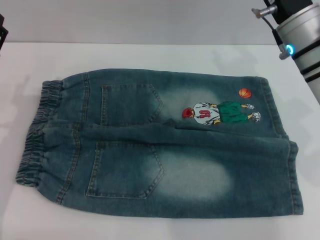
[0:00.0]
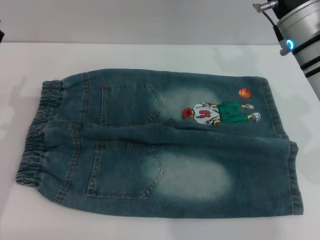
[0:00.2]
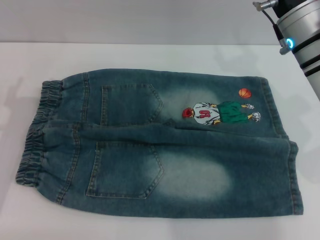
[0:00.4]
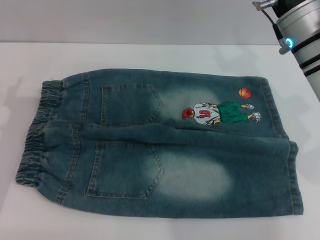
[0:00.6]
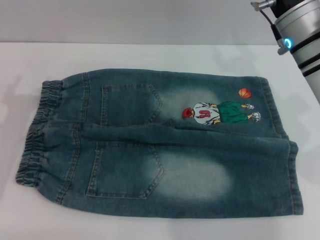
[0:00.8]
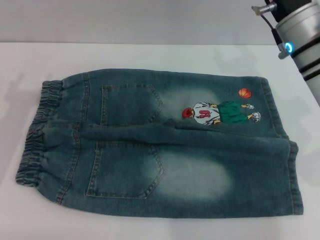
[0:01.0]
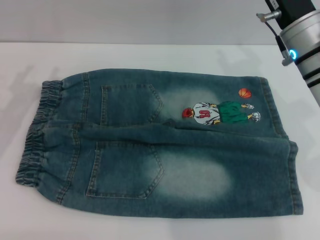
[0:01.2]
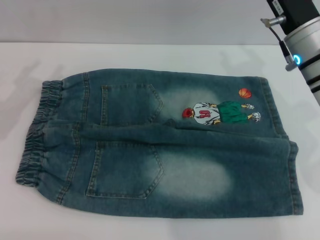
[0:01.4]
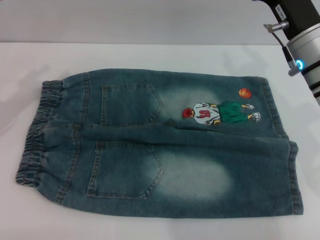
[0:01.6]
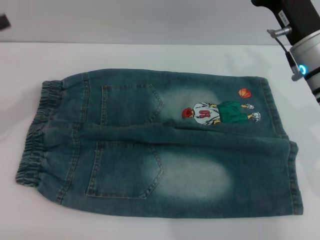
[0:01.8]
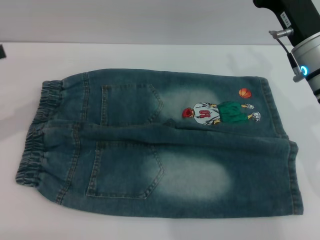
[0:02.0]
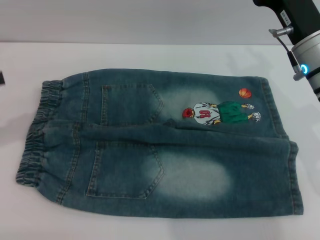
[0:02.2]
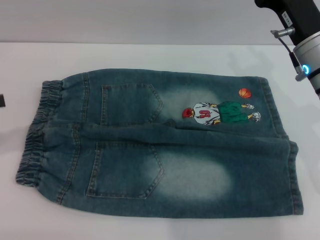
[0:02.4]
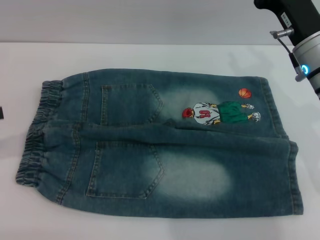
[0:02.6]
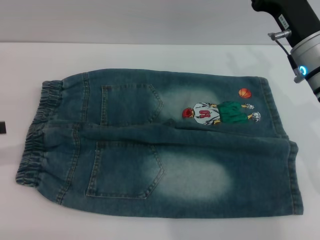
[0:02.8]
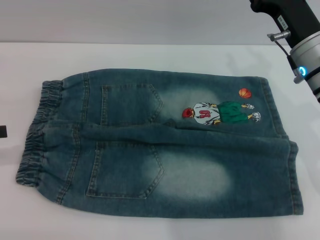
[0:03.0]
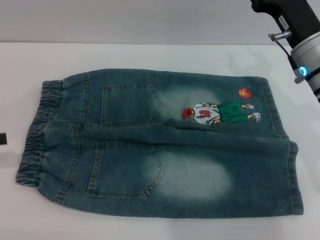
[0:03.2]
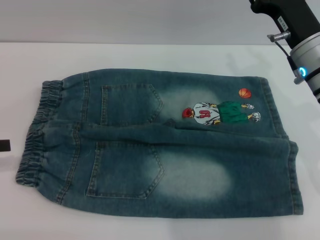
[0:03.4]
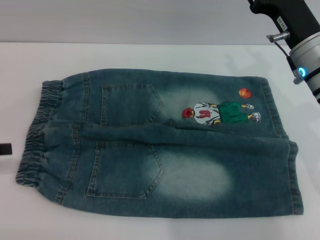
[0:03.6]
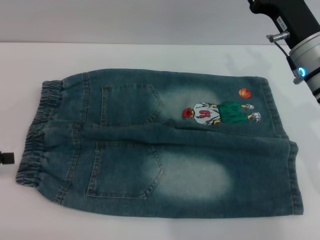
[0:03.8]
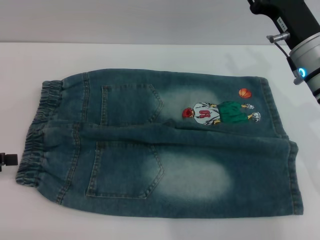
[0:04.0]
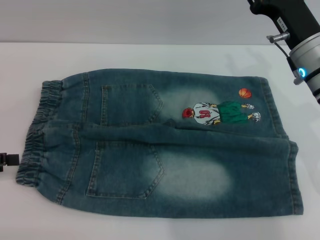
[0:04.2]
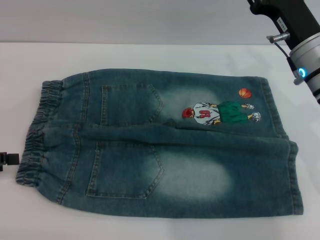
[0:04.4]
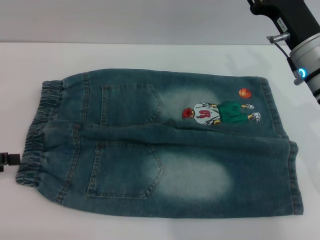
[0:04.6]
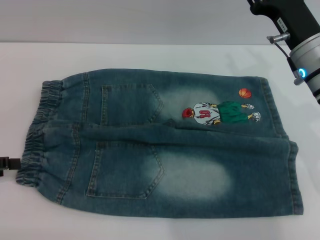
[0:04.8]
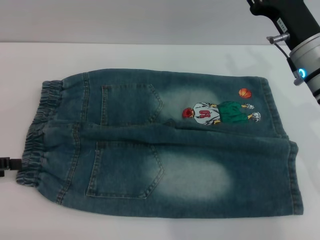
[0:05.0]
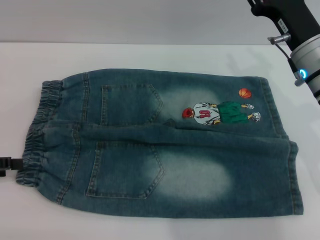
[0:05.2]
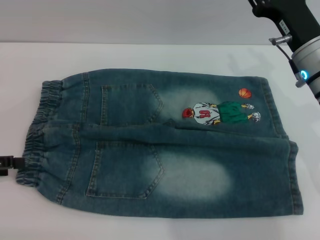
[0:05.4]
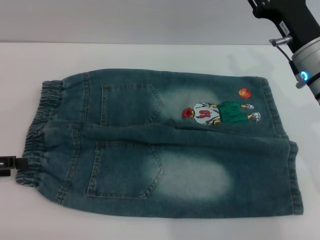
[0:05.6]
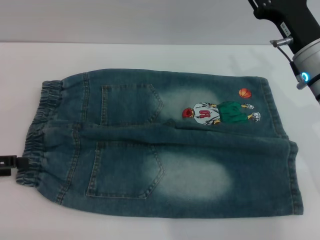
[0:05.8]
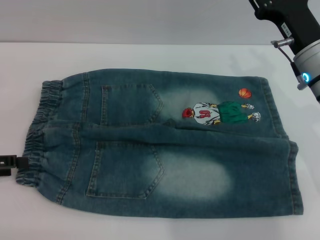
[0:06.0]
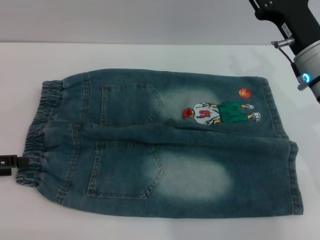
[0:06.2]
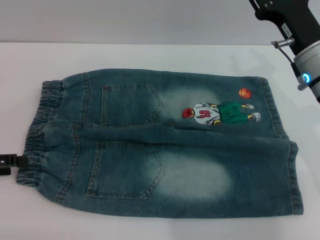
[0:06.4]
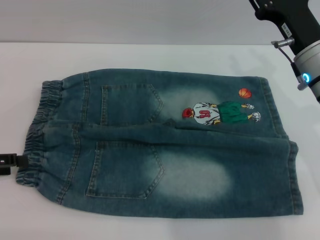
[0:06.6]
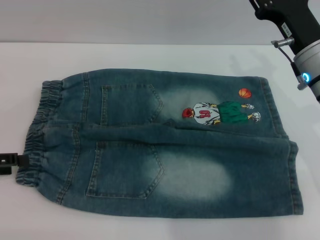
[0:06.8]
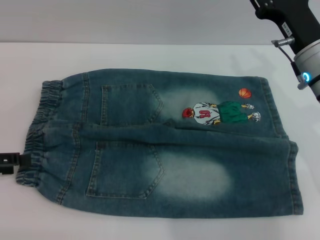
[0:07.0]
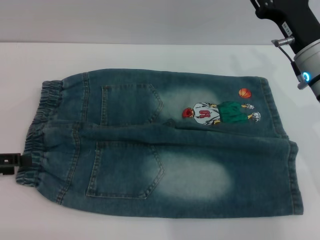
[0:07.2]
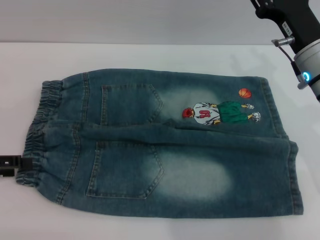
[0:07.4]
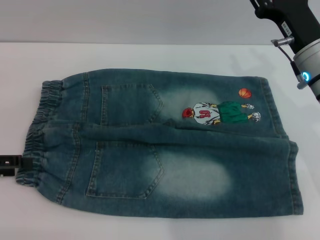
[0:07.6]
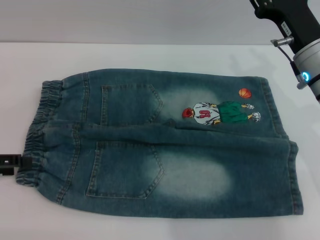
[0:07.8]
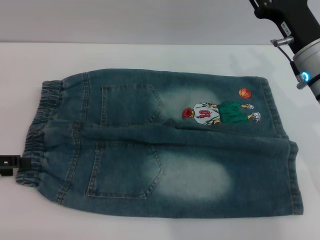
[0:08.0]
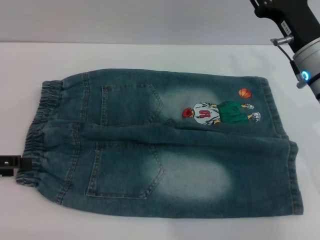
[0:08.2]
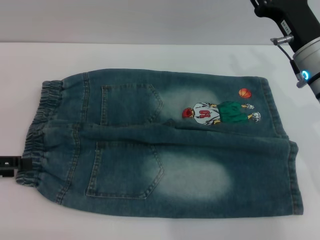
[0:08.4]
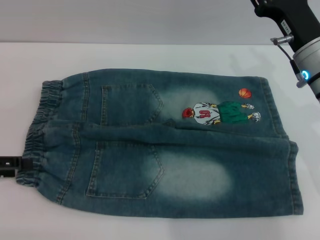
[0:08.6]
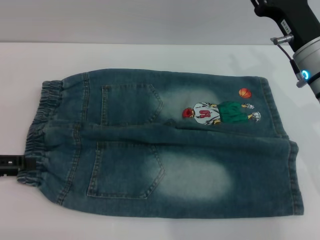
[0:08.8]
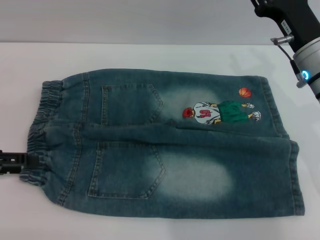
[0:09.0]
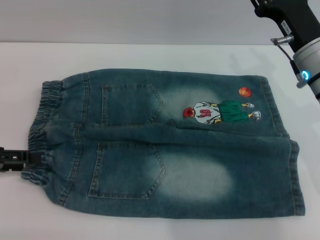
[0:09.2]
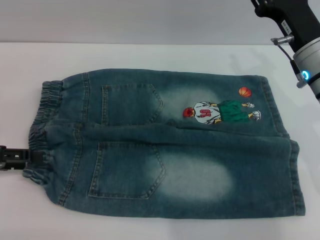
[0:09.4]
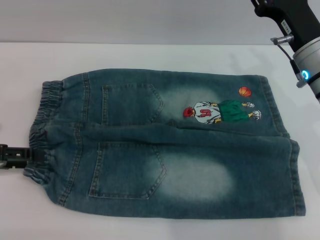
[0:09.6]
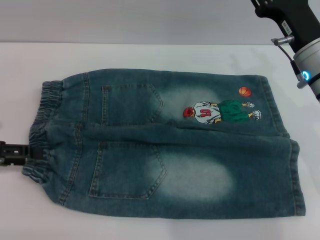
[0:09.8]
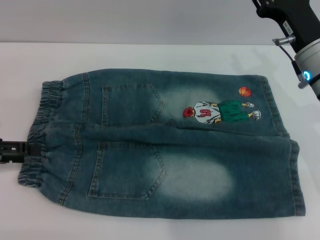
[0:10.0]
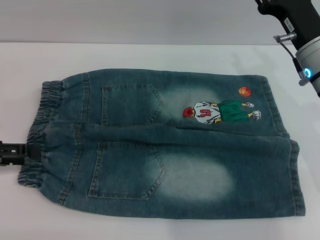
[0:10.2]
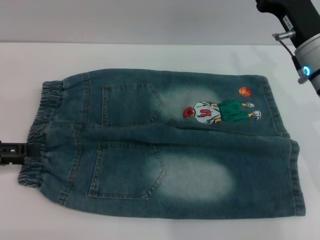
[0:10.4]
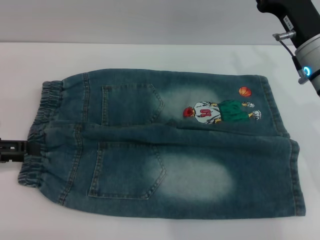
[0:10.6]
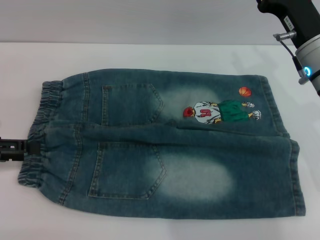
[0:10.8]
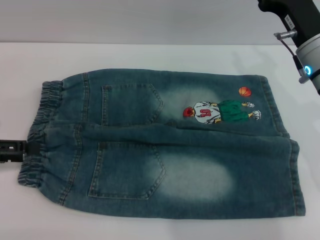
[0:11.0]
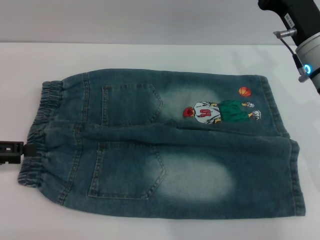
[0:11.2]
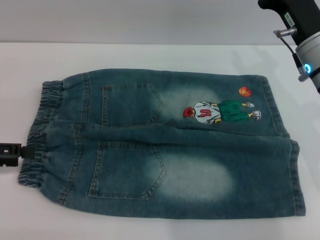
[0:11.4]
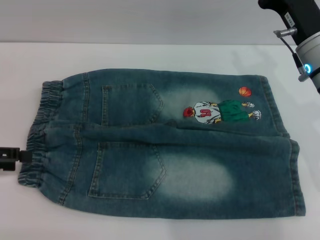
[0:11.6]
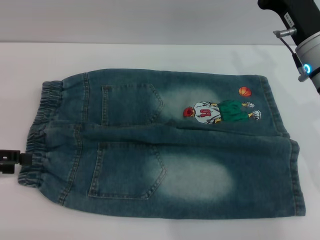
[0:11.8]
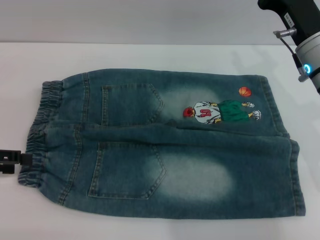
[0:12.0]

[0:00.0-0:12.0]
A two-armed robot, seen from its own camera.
0:03.0 to 0:04.4: There are only small adjustments of the grippers.
0:04.4 to 0:06.0: Both grippers stay put.
0:06.0 to 0:07.6: Both grippers stay put.
0:07.6 to 0:09.0: Both grippers stay put.
0:09.0 to 0:12.0: The grippers stay close to where they were, moving slightly.

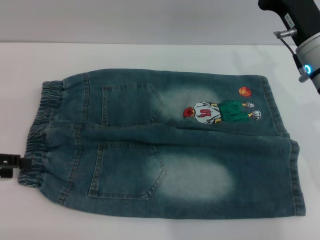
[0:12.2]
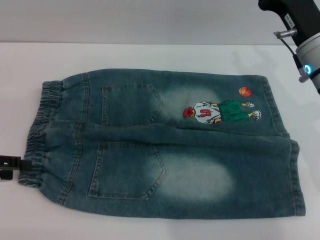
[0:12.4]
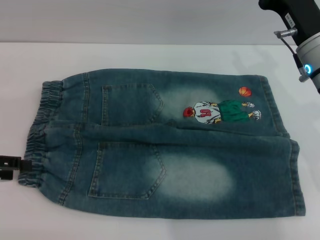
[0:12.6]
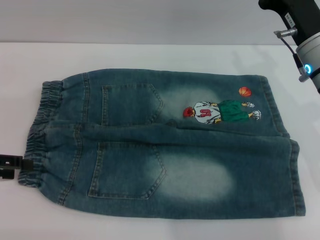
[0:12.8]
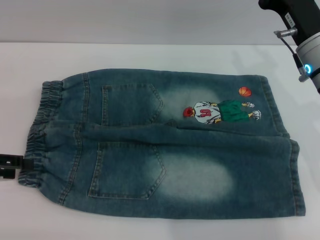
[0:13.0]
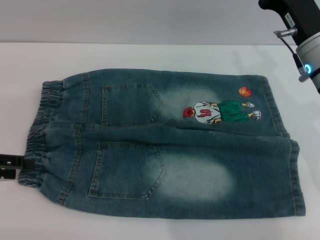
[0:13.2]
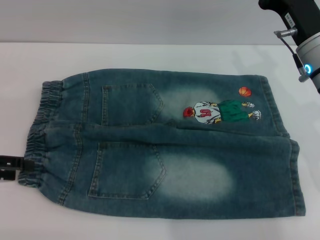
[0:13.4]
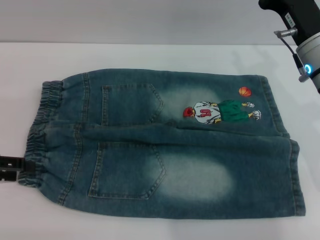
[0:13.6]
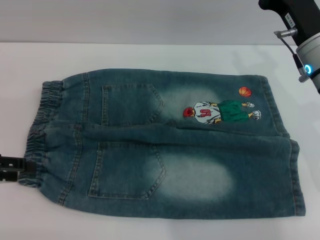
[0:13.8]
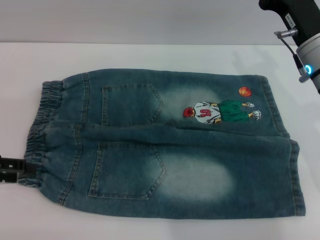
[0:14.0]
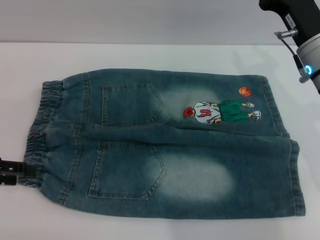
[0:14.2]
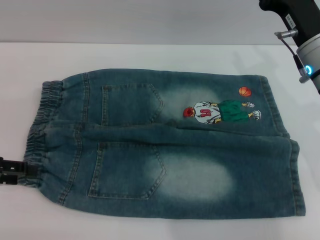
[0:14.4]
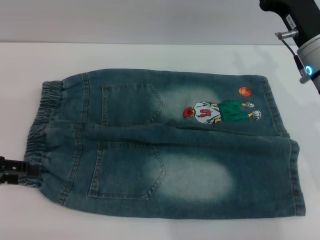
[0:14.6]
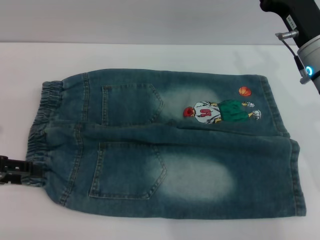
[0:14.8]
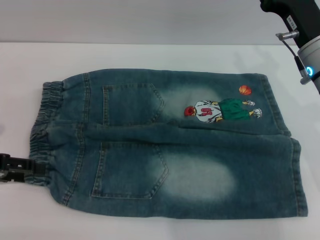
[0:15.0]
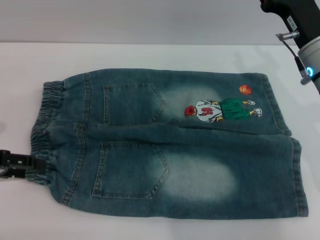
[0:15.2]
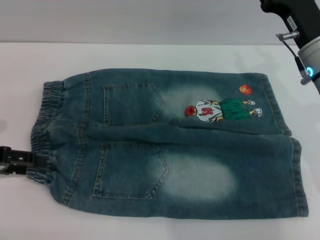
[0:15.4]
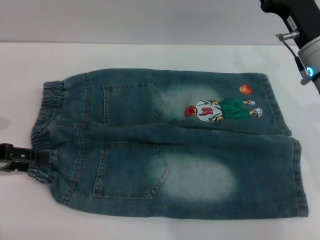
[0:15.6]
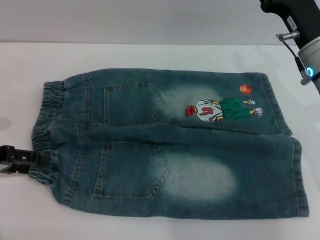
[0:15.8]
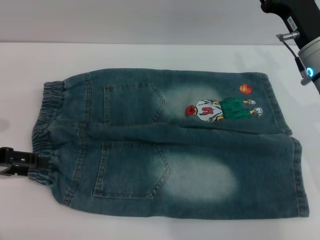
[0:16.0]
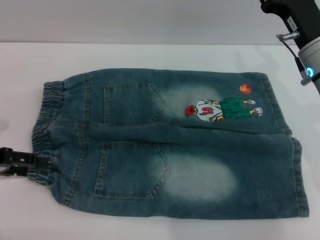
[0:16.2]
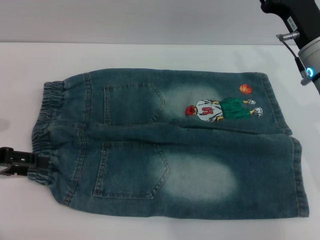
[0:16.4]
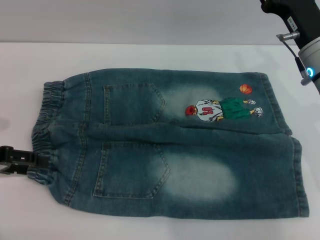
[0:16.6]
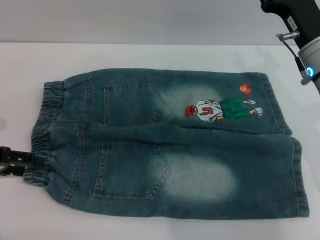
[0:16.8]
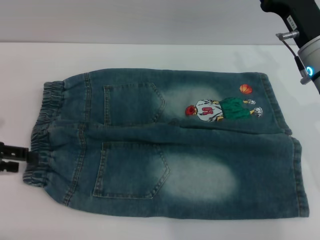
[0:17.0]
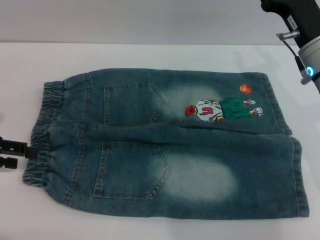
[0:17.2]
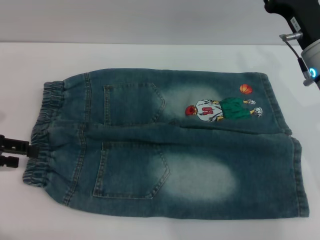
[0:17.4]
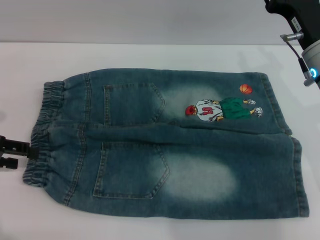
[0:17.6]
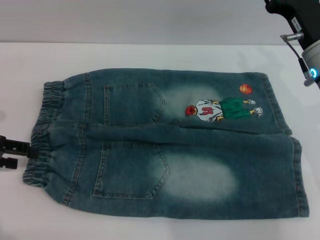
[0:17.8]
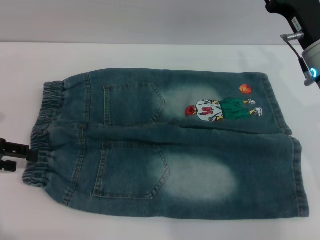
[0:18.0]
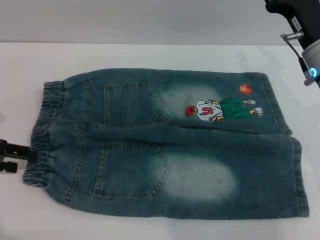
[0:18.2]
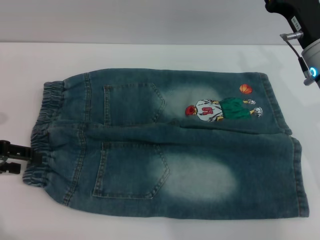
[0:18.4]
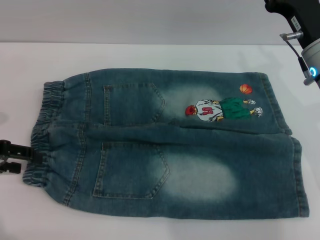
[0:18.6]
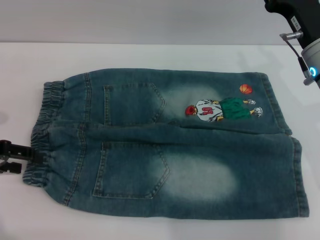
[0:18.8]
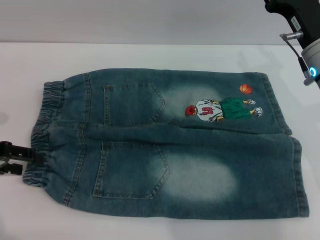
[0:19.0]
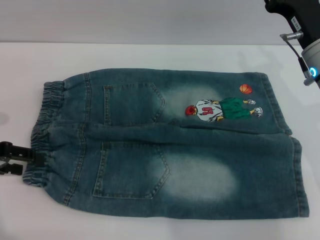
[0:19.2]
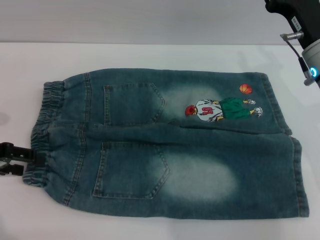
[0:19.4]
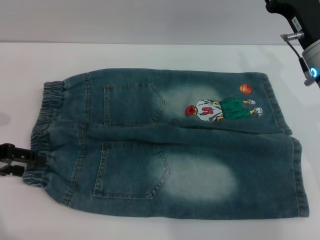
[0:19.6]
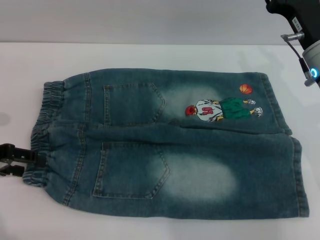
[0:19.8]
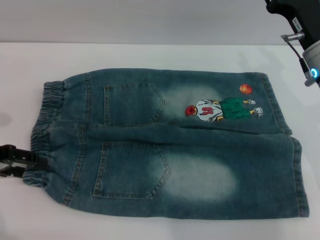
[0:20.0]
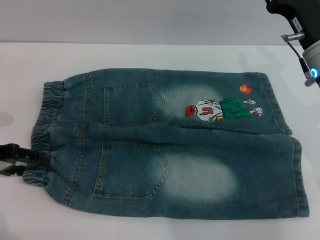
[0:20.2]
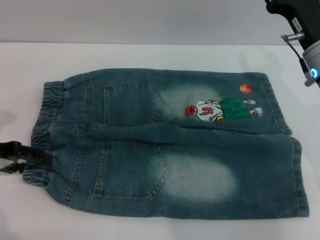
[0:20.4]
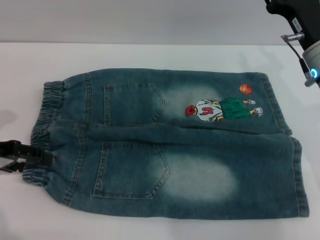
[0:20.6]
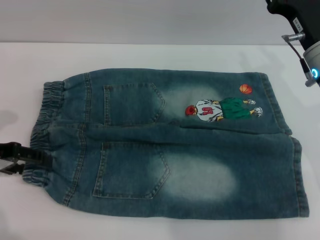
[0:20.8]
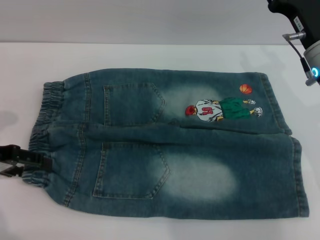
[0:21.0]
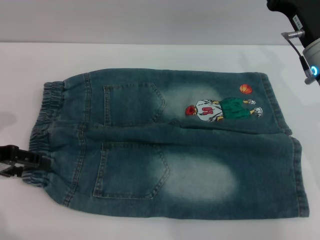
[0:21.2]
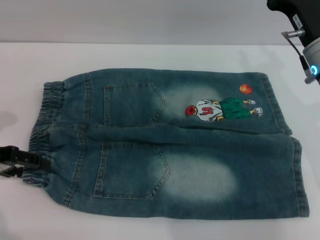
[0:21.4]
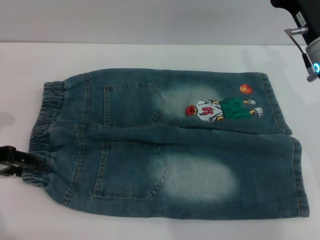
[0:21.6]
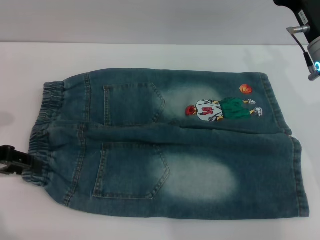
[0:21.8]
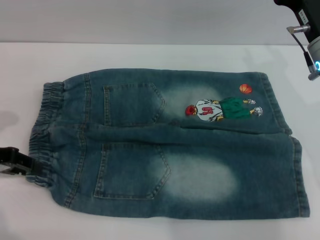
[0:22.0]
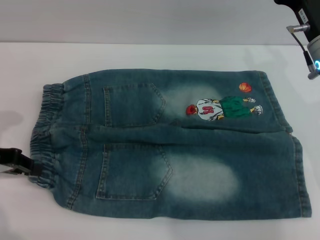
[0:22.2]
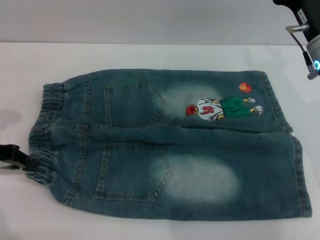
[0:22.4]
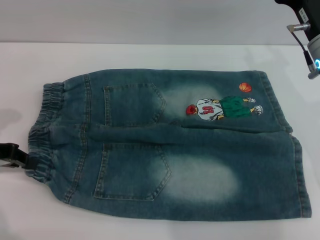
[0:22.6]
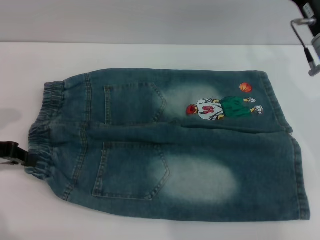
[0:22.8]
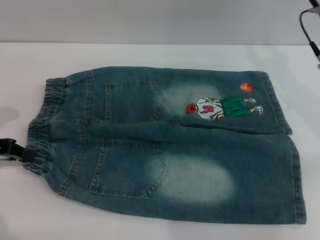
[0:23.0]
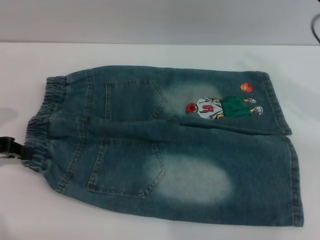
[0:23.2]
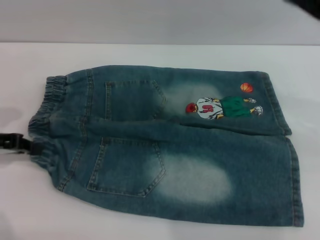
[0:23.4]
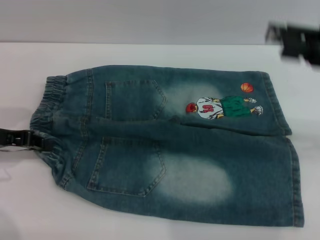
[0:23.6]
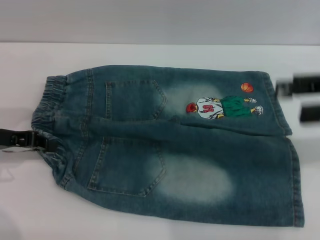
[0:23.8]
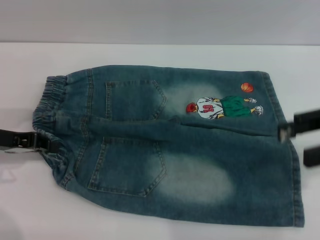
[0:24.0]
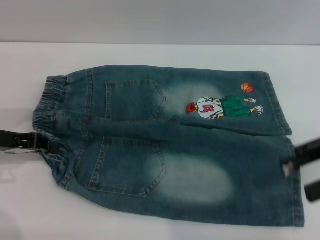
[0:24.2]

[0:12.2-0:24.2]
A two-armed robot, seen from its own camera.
0:12.2 to 0:13.8: The two grippers keep their place.
0:13.8 to 0:15.2: Both grippers stay put.
0:15.2 to 0:16.6: The two grippers keep their place.
0:16.6 to 0:18.2: The grippers stay close to where they were, moving slightly.
0:18.2 to 0:19.8: The two grippers keep their place.
0:19.8 to 0:21.2: The two grippers keep their place.
0:21.2 to 0:22.6: The left gripper closes its fingers.
0:22.6 to 0:24.2: The right gripper moves to the right, backward and upward, some 15 cm.
